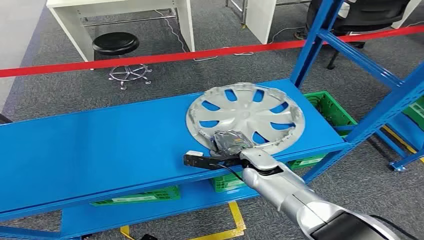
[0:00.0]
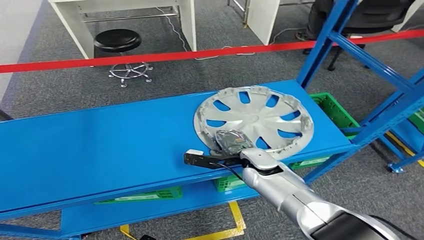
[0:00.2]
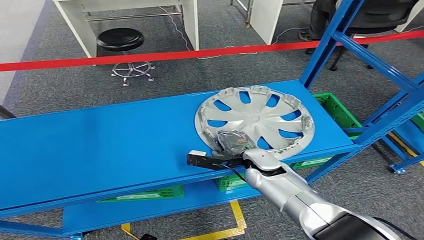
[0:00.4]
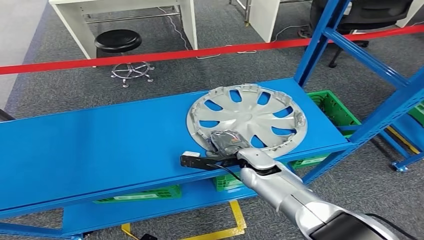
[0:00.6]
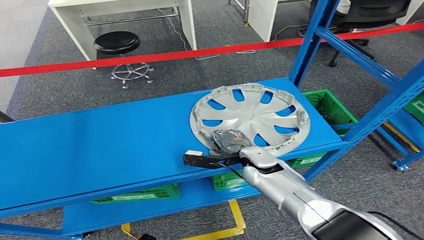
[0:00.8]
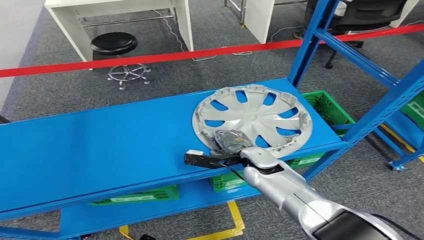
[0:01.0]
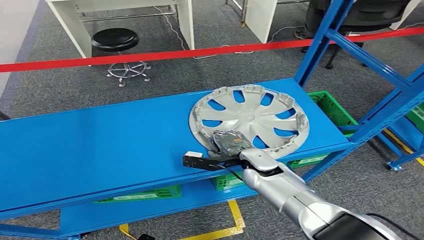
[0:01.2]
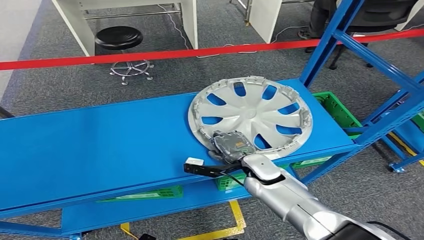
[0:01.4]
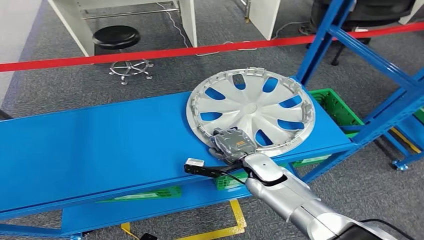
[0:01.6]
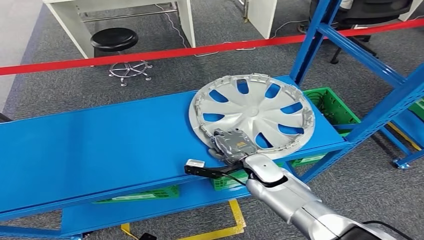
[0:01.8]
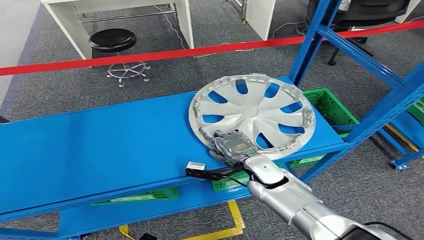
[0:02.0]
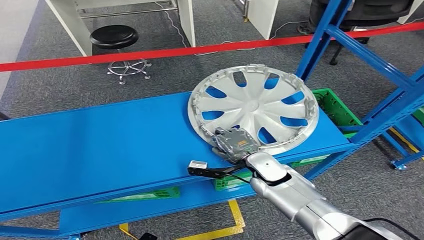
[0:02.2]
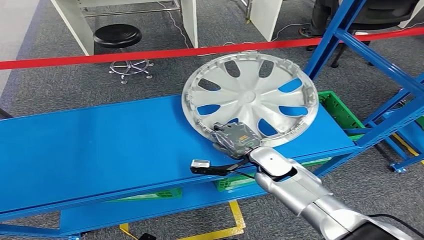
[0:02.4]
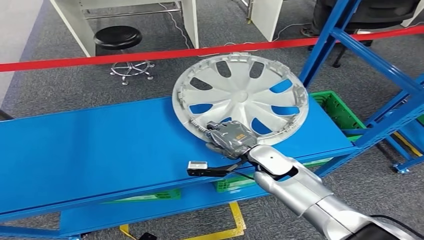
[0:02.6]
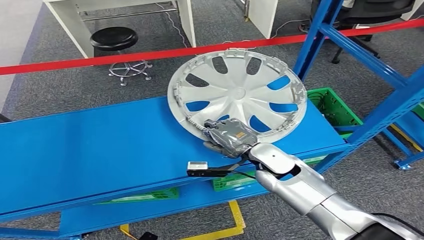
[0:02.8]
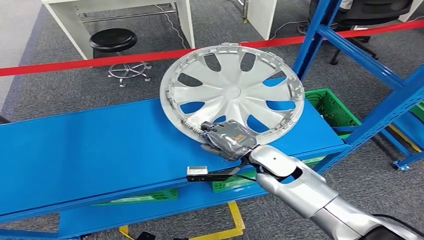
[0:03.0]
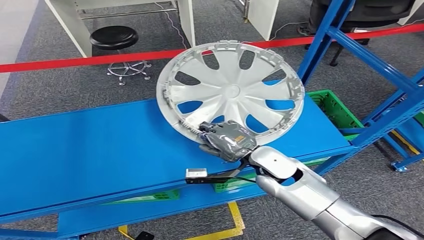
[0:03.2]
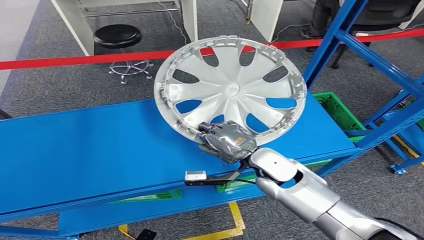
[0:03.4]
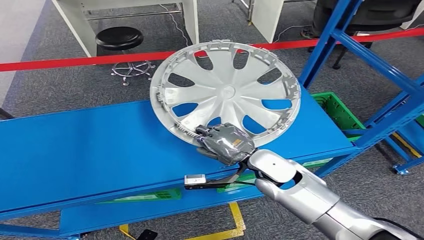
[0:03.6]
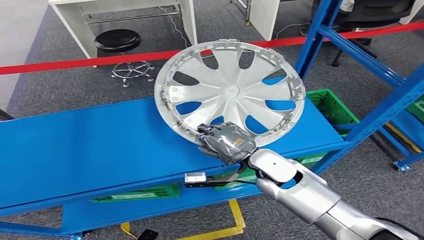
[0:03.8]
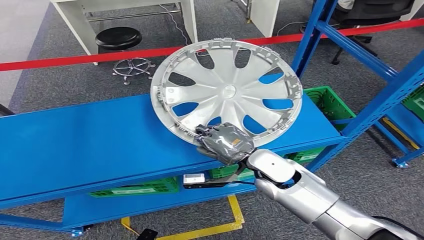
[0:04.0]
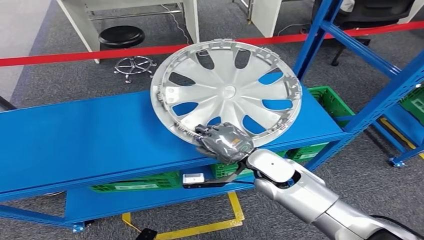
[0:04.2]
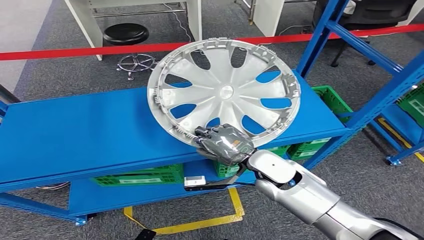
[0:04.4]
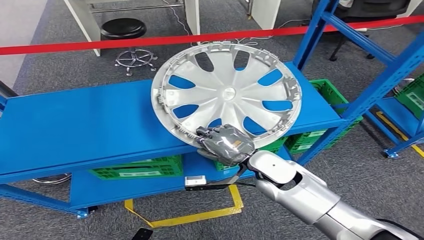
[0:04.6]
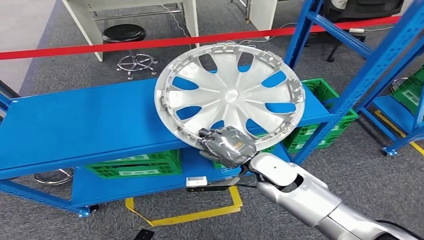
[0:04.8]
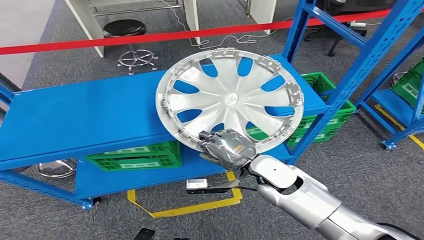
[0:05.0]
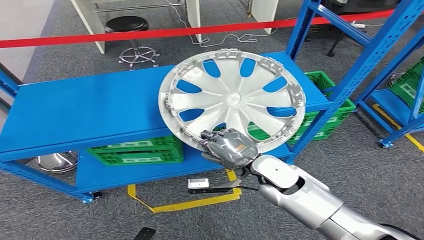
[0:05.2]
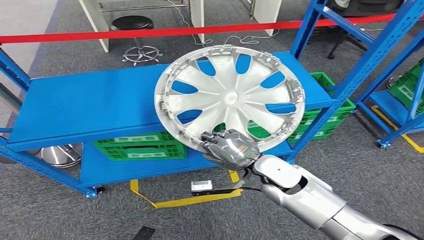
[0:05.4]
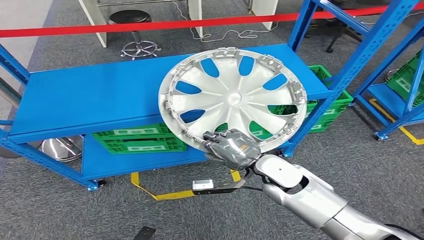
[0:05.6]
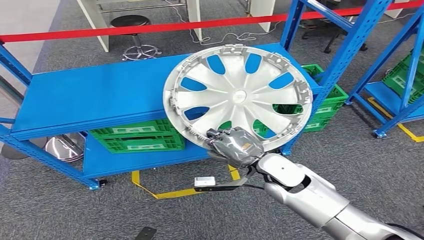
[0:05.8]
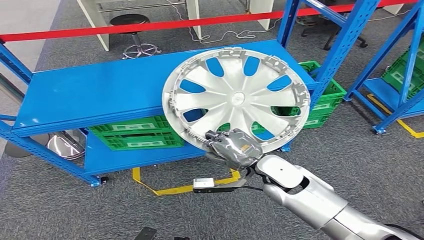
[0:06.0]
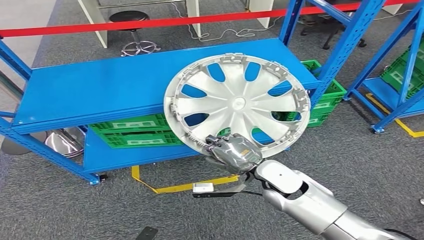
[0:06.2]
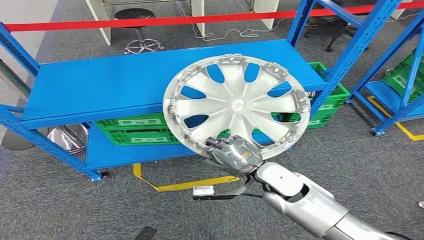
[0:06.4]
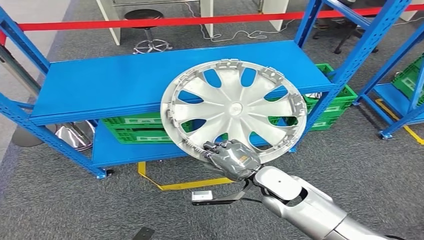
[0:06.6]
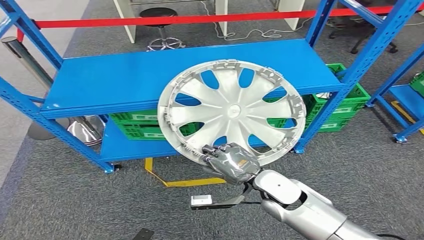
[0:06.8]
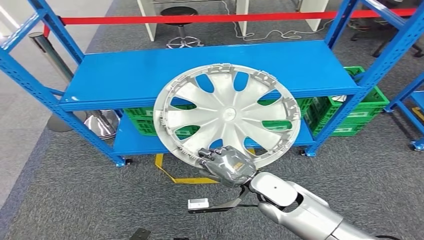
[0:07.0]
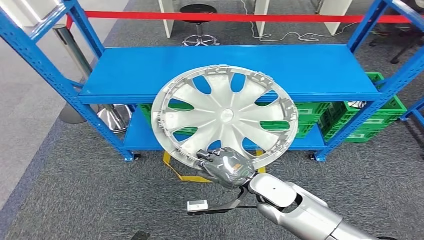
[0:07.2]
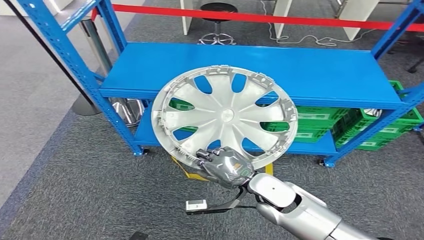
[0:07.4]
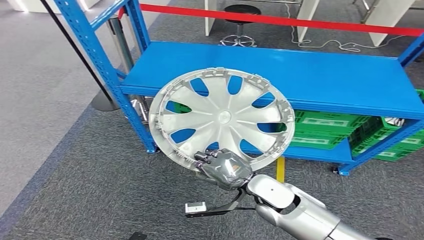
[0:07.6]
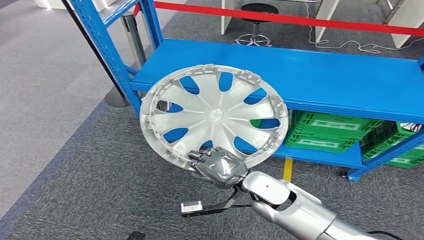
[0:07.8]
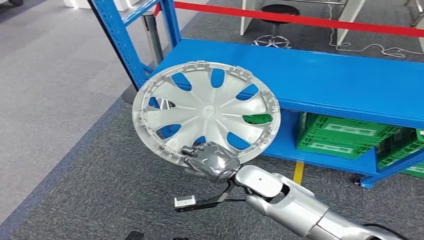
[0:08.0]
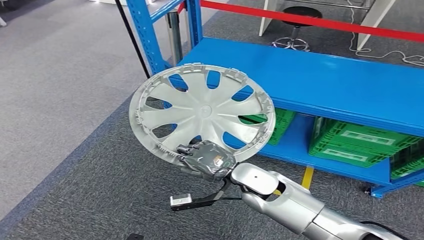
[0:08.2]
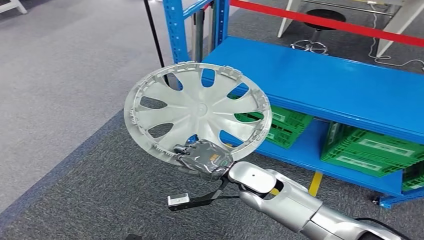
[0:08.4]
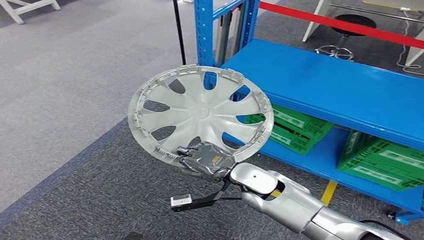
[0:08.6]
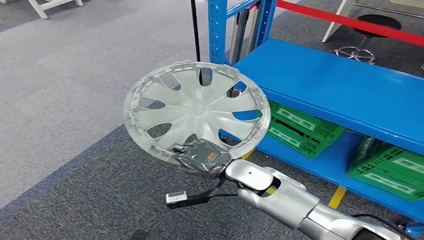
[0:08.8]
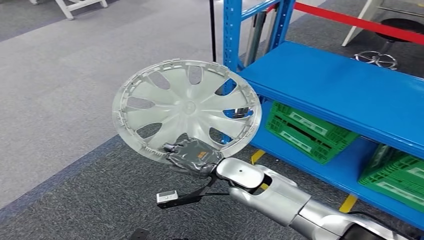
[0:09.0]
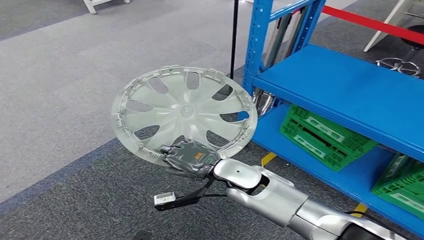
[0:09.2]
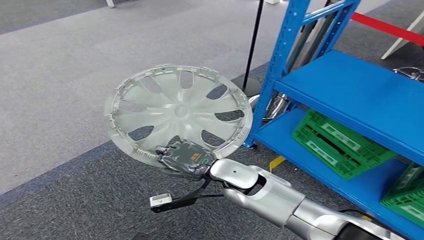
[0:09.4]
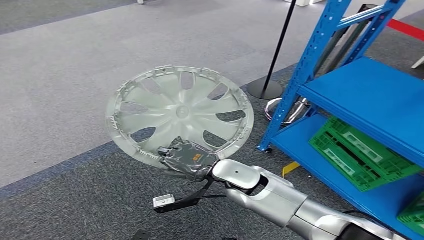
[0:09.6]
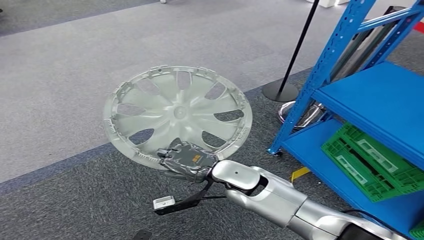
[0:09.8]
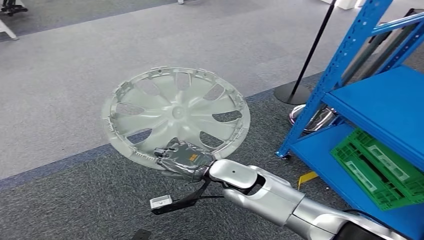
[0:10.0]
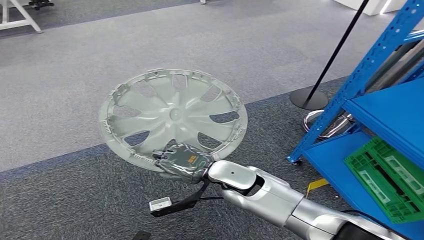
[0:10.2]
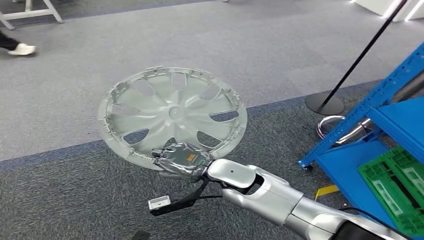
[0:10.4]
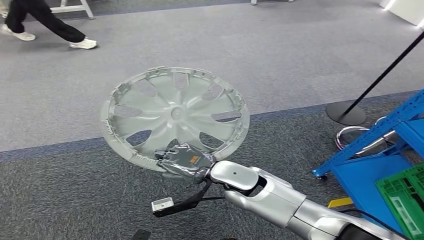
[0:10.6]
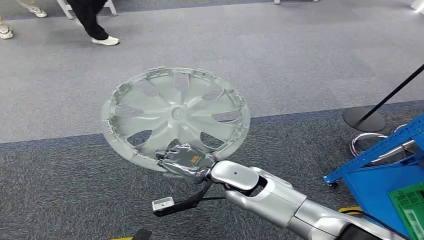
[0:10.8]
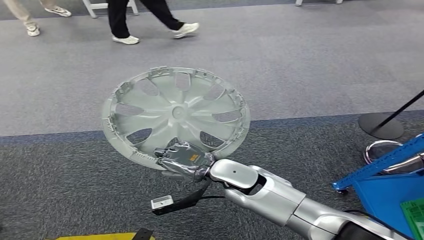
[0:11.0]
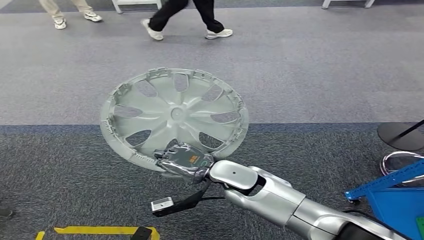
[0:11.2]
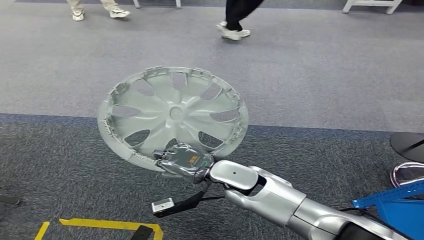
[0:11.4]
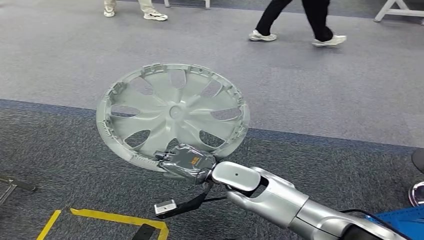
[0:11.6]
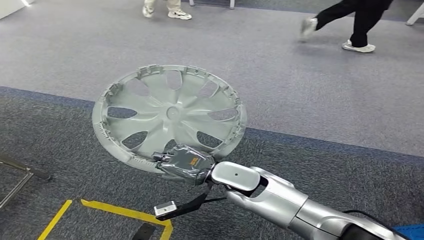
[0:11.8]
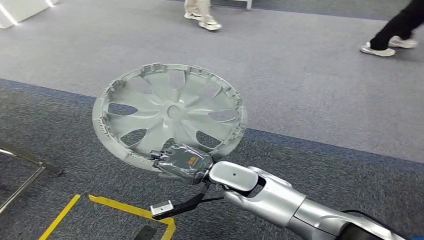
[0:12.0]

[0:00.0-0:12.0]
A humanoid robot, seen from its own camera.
Step, 0:00.0 to 0:03.2: Pick up the small component from the shelf.

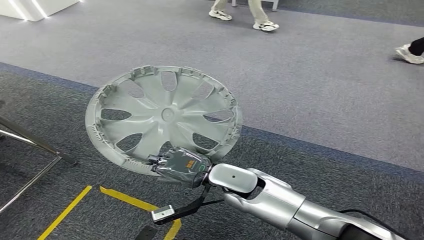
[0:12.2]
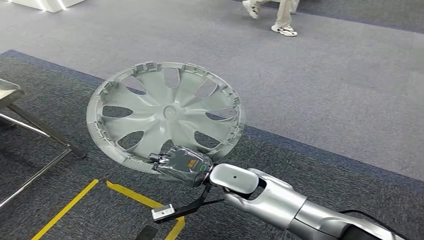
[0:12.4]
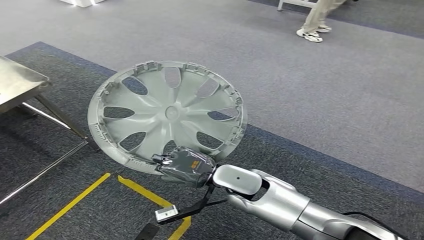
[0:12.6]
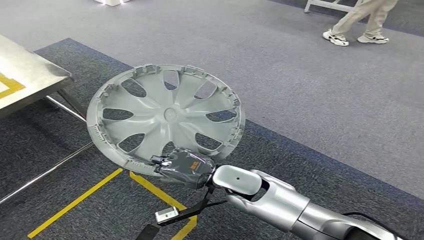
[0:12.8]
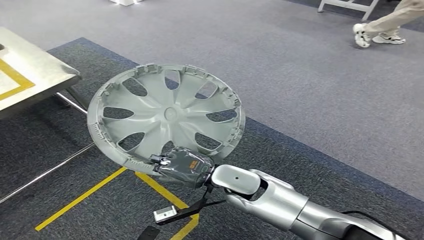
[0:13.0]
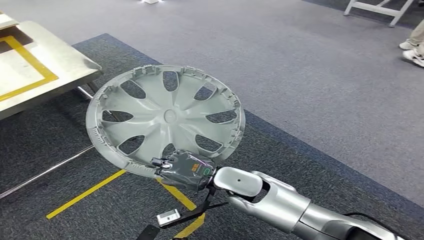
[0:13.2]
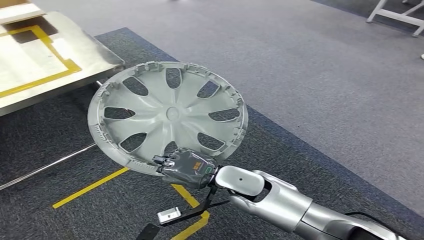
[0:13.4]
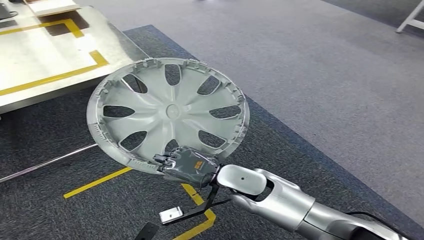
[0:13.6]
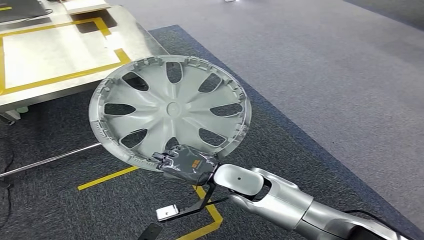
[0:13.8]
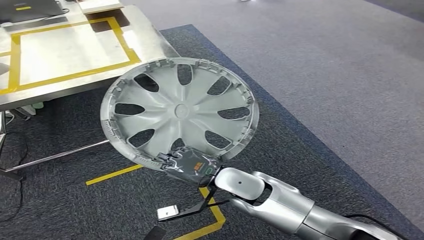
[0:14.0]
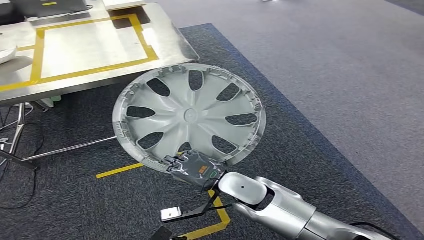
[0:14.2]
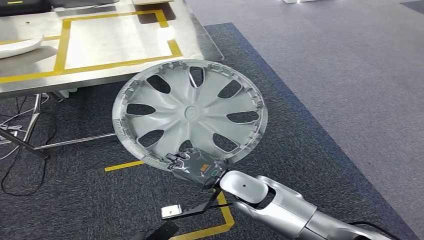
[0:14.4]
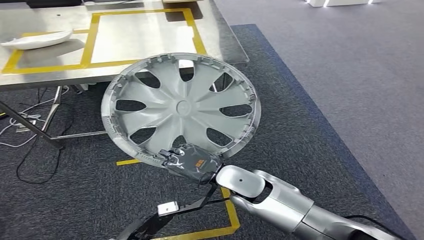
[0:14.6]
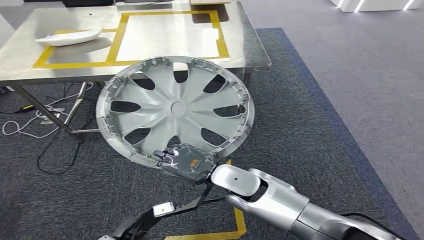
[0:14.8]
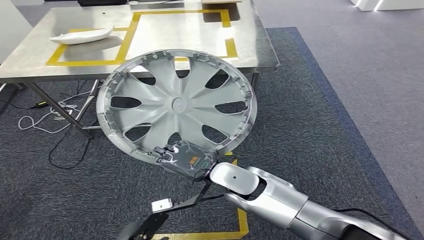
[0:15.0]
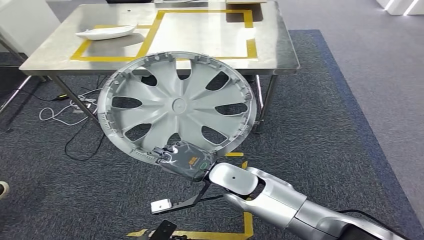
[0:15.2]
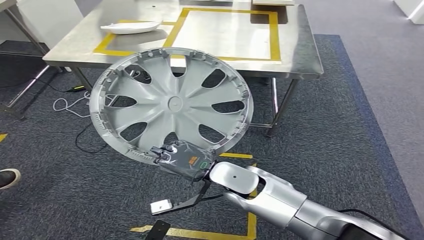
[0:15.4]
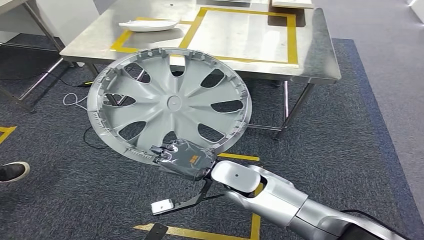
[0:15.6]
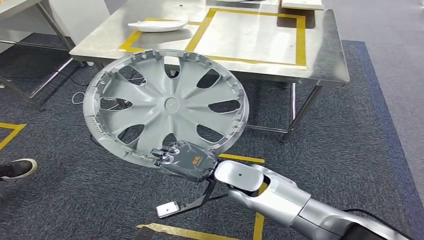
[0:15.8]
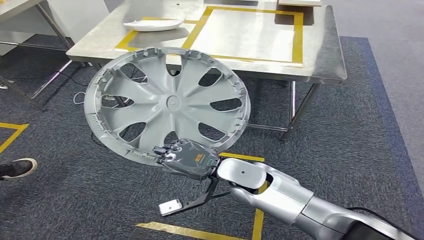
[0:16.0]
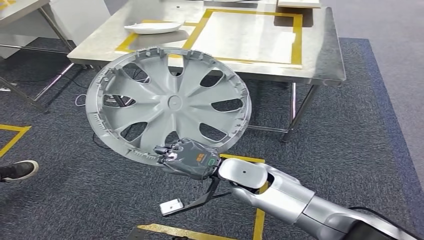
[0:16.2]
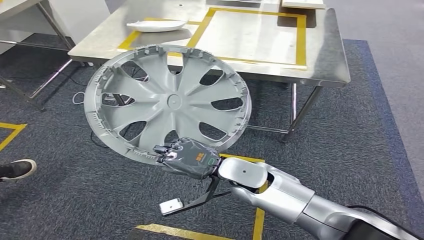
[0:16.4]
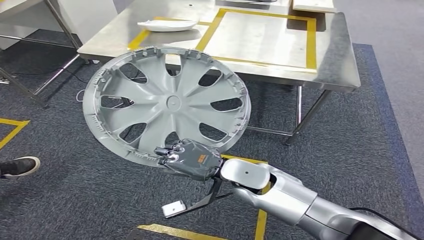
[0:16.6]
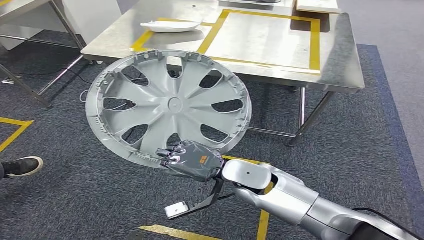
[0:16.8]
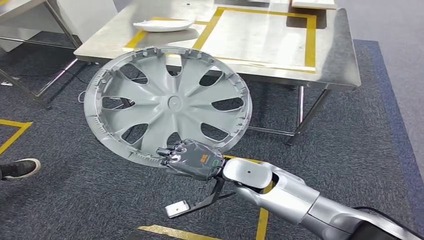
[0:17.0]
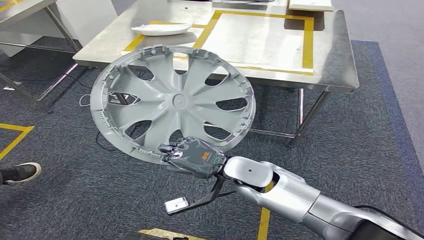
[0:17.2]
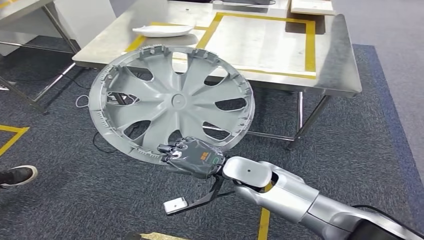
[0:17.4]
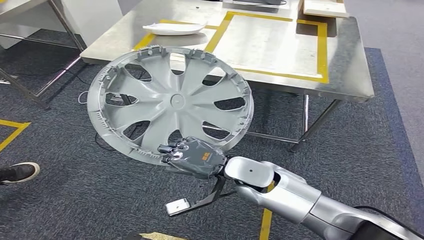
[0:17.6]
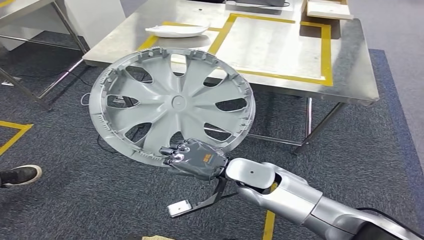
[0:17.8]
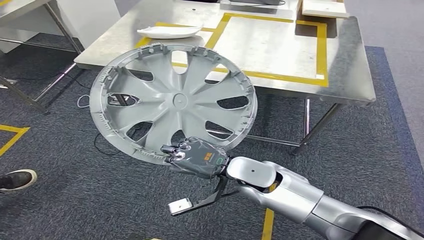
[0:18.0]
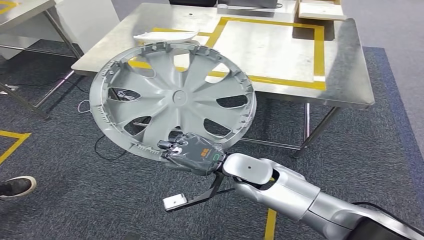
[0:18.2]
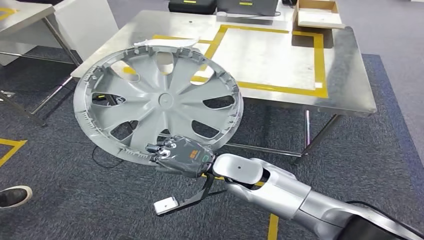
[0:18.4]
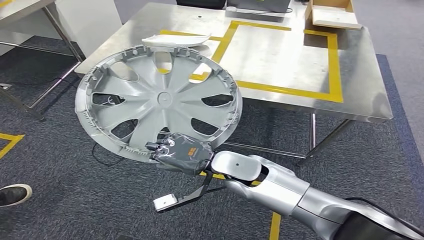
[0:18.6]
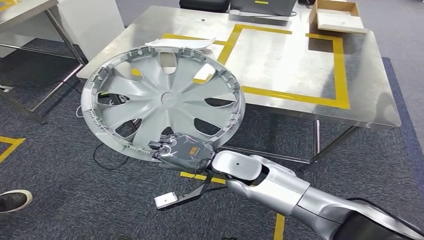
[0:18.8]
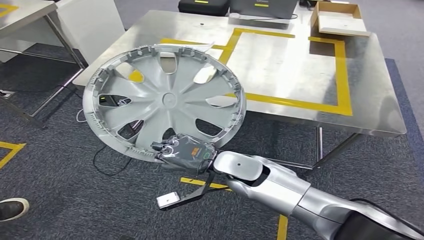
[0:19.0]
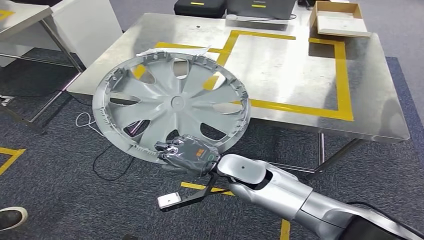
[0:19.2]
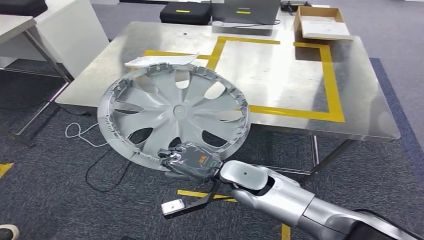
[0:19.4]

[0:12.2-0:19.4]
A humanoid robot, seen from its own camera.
Step, 0:12.2 to 0:18.0: Move the small component to the workbench.
